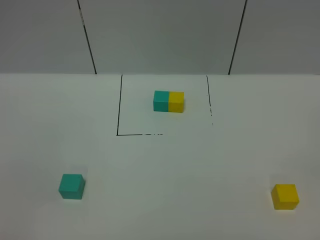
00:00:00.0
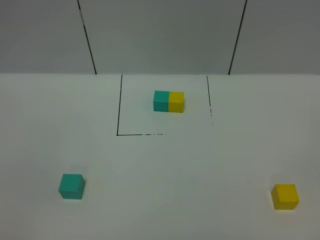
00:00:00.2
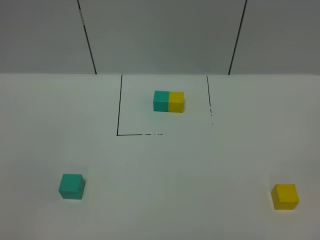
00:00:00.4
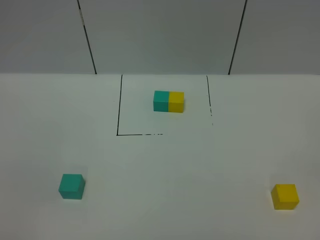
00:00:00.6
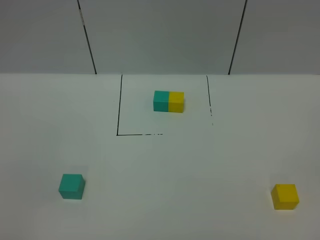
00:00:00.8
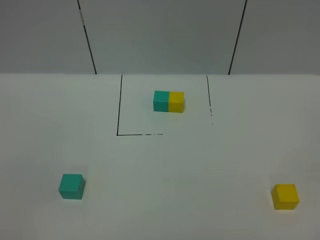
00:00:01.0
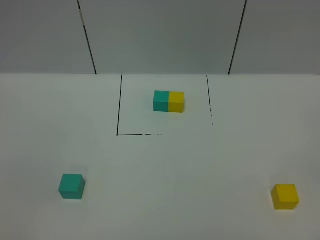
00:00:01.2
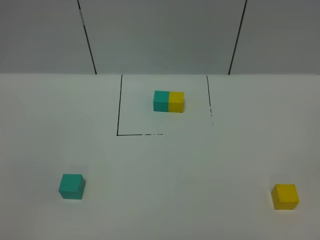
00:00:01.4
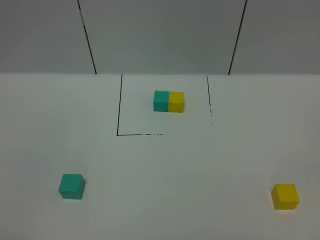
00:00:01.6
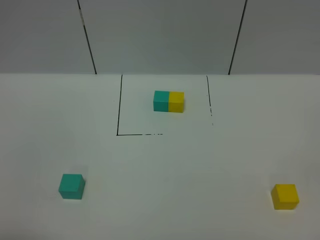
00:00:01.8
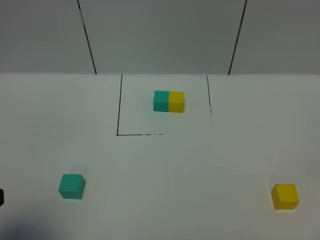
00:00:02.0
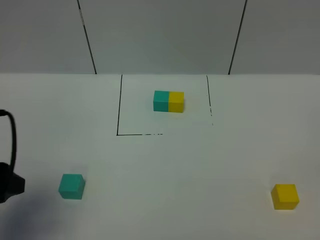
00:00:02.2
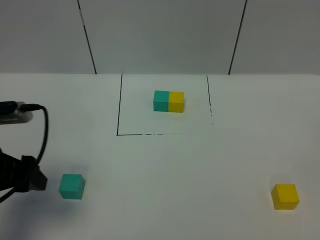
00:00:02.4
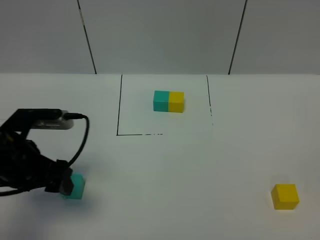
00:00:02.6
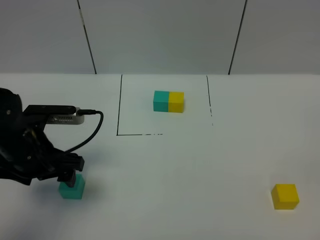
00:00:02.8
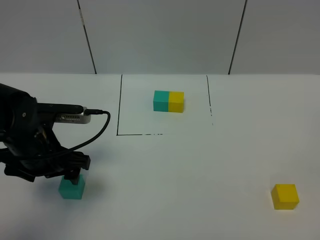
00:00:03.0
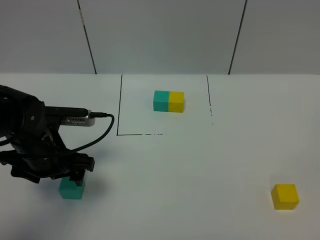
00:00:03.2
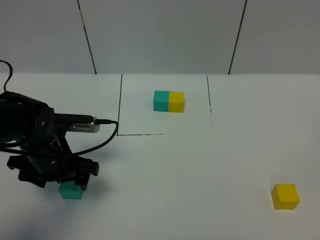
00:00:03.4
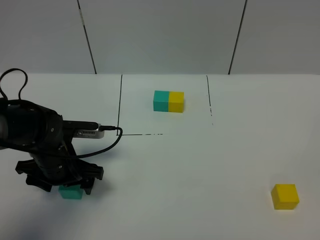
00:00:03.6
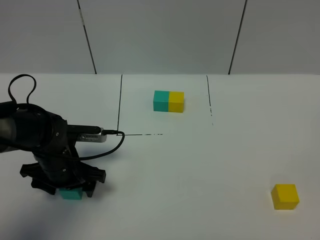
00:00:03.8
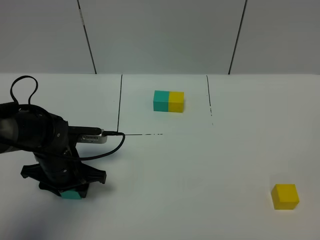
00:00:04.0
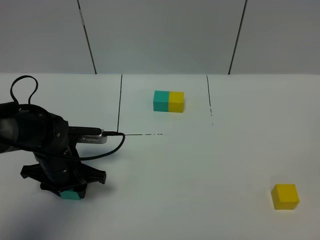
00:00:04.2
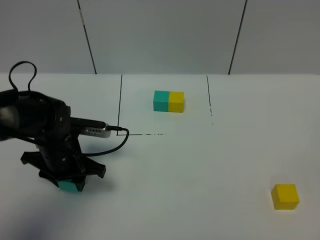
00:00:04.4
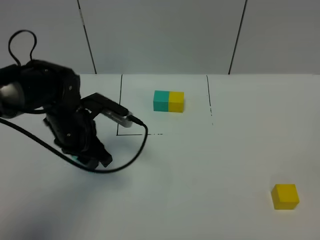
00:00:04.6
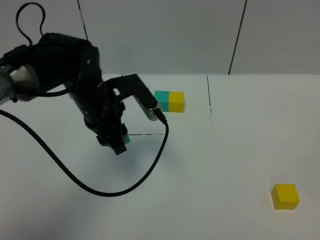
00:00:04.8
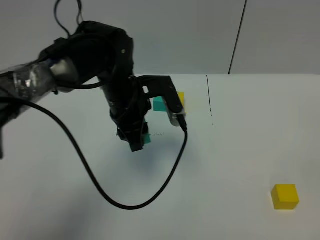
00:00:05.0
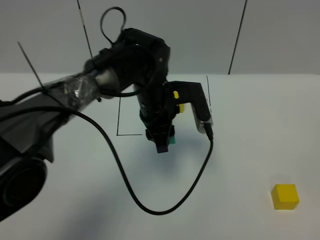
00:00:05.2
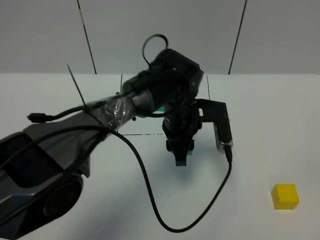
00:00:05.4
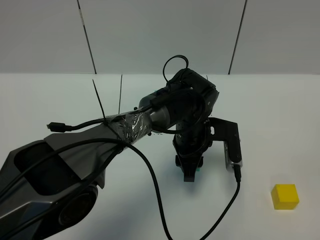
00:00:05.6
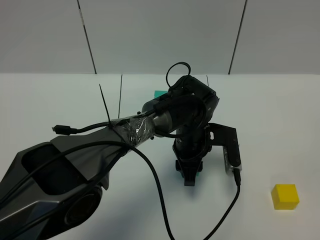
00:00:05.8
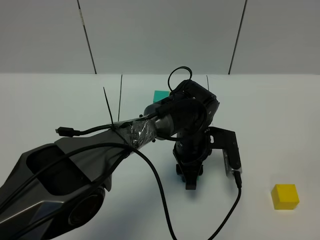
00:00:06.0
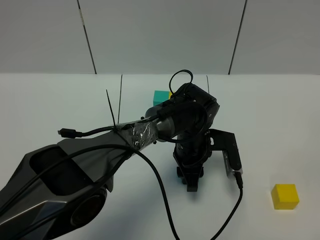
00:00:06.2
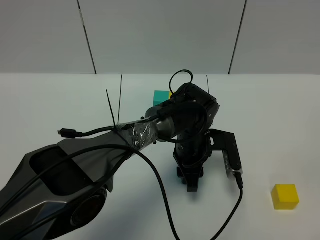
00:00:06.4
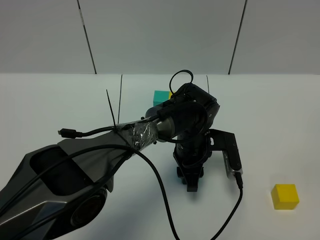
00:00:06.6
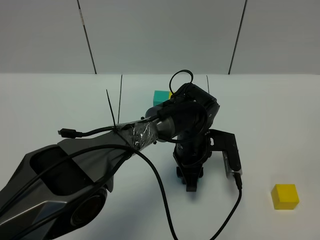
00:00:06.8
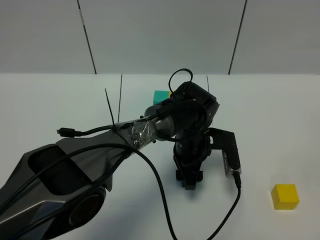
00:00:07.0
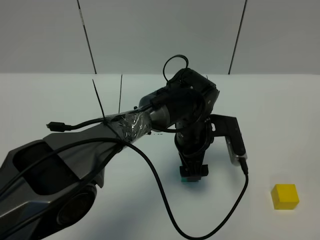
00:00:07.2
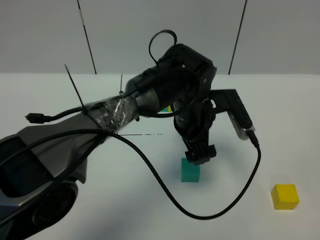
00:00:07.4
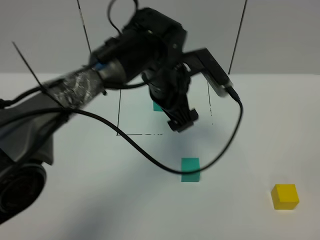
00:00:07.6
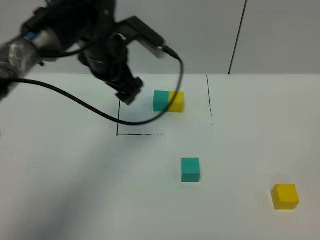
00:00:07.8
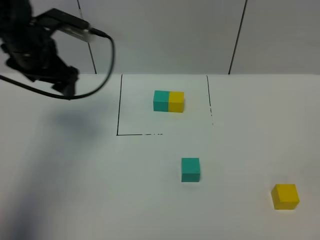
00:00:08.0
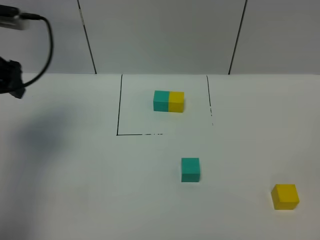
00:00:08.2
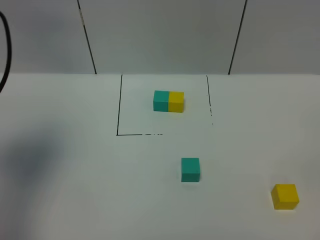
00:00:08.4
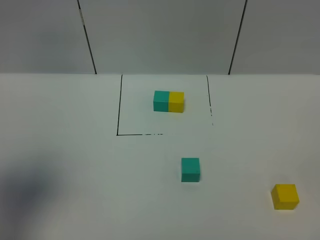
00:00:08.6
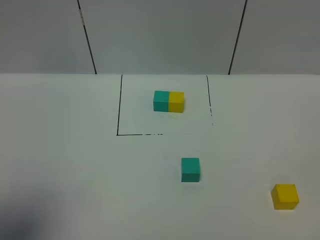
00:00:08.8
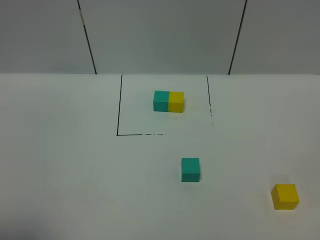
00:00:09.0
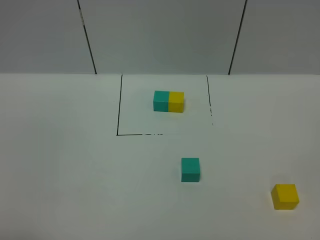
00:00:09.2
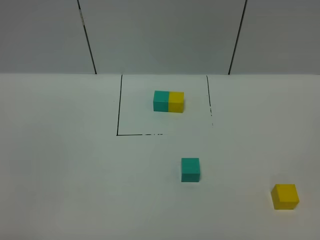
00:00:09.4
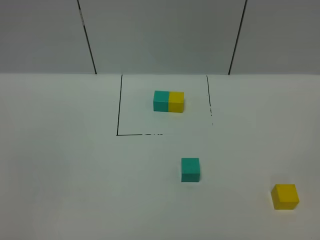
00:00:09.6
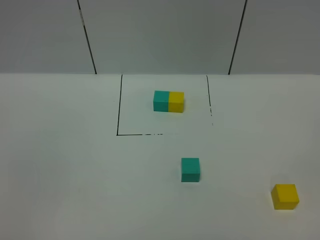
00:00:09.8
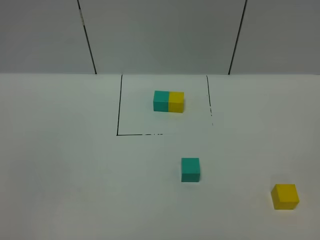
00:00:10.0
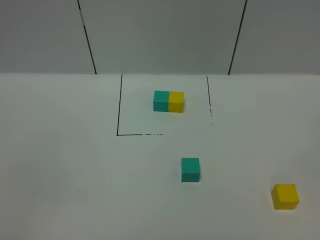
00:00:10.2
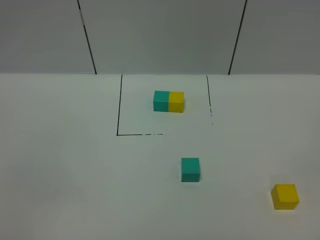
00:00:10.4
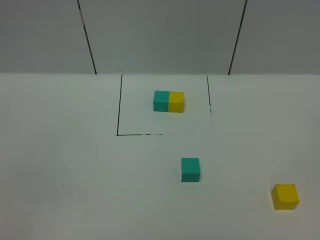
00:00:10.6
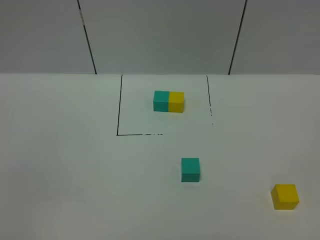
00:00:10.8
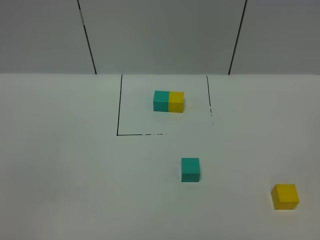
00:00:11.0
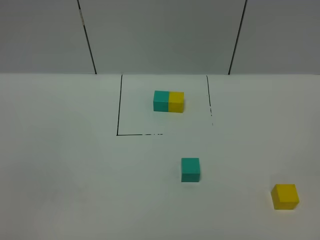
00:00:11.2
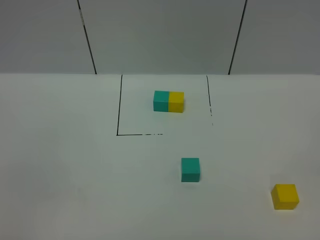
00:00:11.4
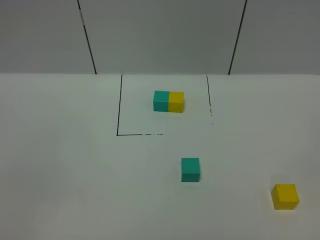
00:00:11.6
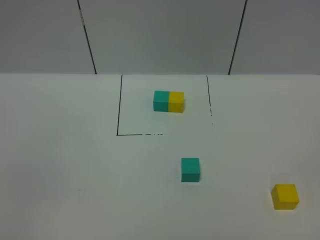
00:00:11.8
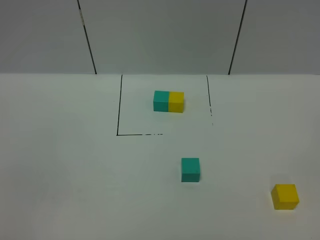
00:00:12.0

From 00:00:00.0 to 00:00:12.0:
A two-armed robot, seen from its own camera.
Task of the whole recording: According to the building block template in front, assemble the scattered blocks together.
Step, from 00:00:02.0 to 00:00:07.2: Put the green cube in the center of the table.
From 00:00:01.6 to 00:00:03.0: The left gripper travels forward by about 30 cm.
From 00:00:03.0 to 00:00:04.4: The left gripper shifts approximately 5 cm downward, and closes.
From 00:00:04.4 to 00:00:06.0: The left gripper shifts about 25 cm to the right.
From 00:00:06.0 to 00:00:07.6: The left gripper moves upward and to the left, roughly 15 cm, and opens up.
From 00:00:07.6 to 00:00:09.0: The left gripper travels backward and to the left by roughly 40 cm.

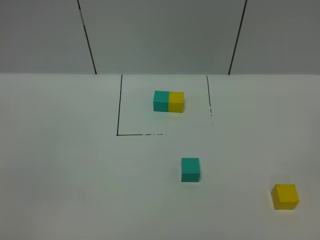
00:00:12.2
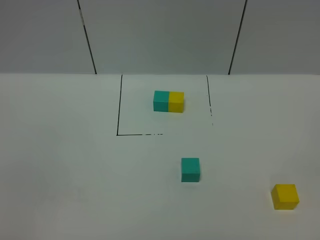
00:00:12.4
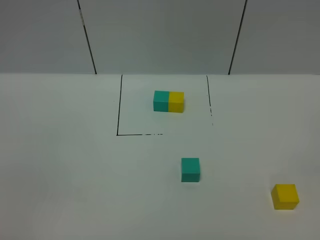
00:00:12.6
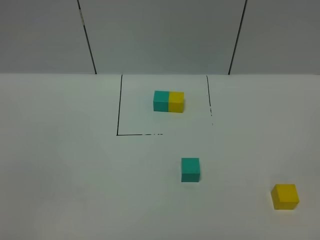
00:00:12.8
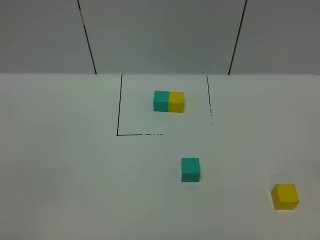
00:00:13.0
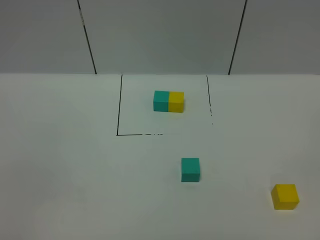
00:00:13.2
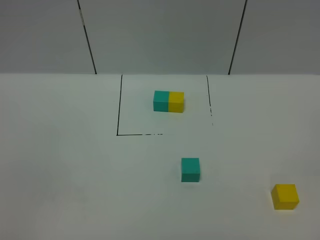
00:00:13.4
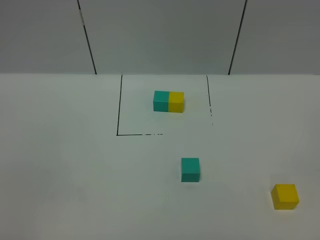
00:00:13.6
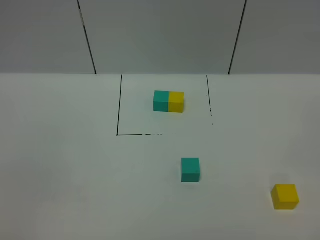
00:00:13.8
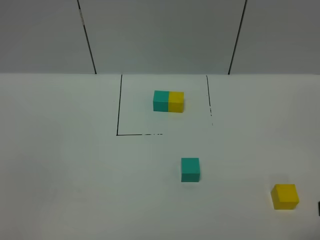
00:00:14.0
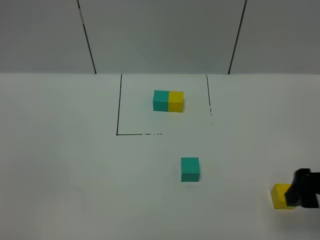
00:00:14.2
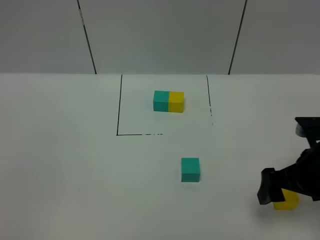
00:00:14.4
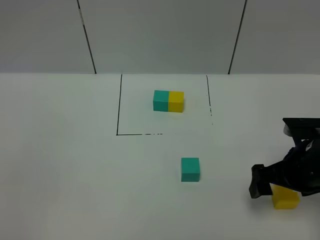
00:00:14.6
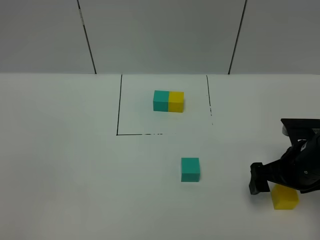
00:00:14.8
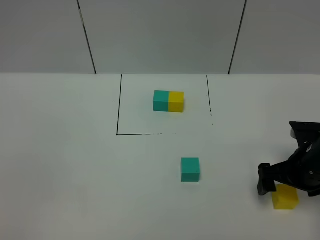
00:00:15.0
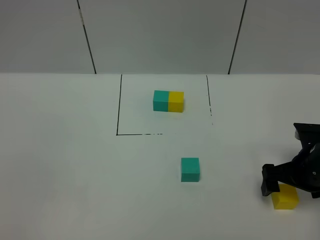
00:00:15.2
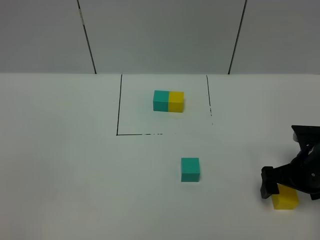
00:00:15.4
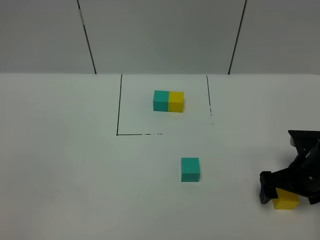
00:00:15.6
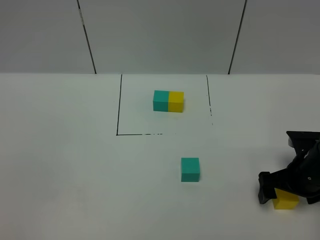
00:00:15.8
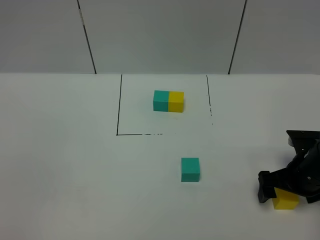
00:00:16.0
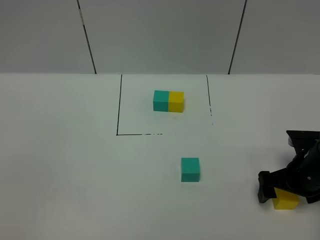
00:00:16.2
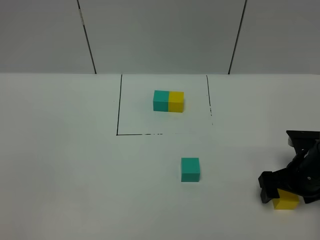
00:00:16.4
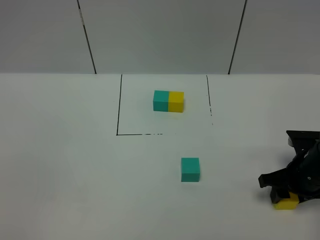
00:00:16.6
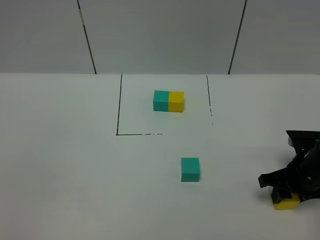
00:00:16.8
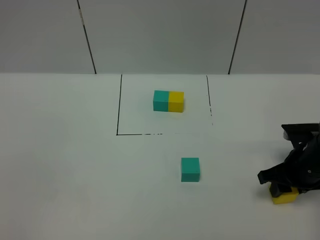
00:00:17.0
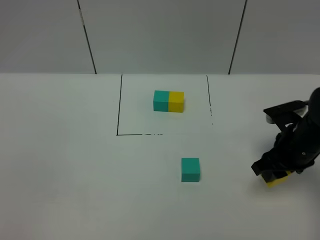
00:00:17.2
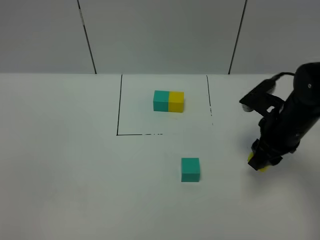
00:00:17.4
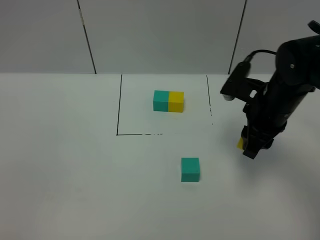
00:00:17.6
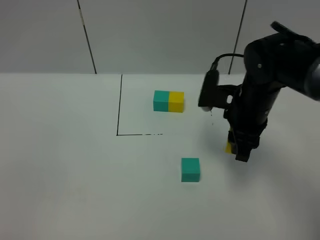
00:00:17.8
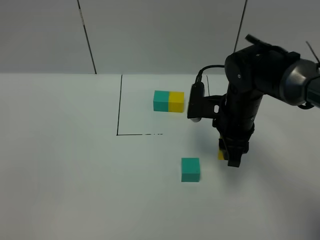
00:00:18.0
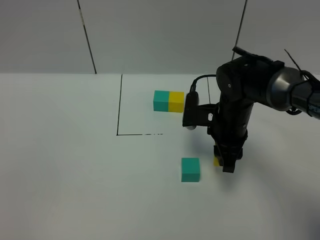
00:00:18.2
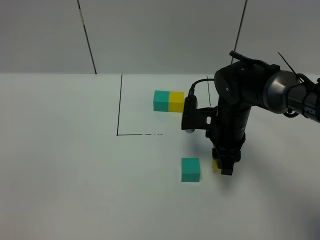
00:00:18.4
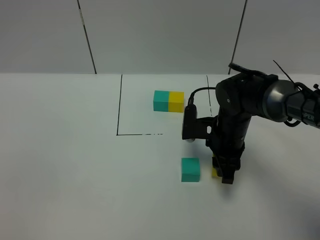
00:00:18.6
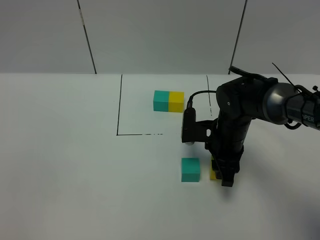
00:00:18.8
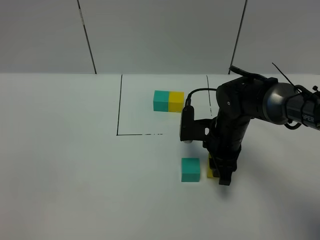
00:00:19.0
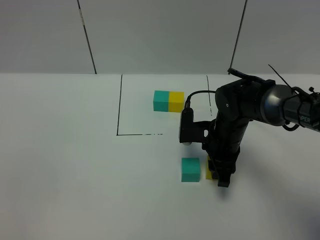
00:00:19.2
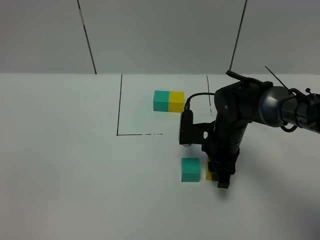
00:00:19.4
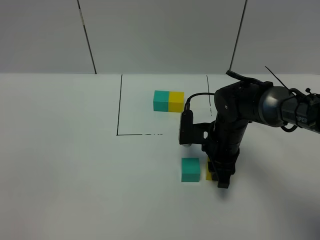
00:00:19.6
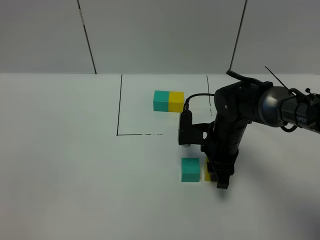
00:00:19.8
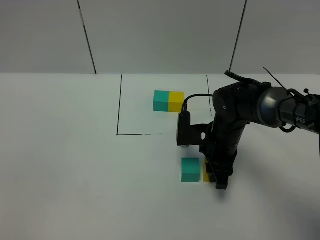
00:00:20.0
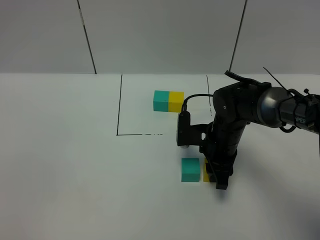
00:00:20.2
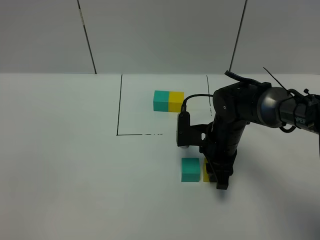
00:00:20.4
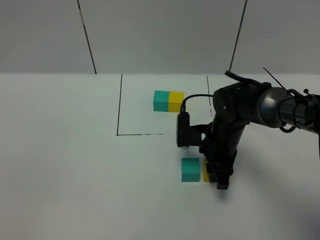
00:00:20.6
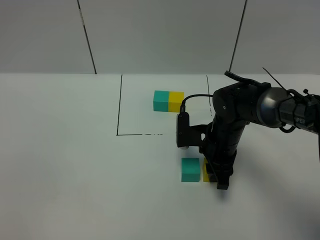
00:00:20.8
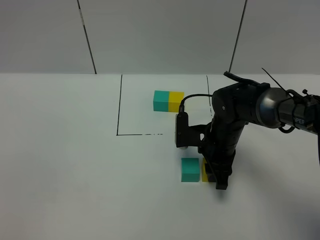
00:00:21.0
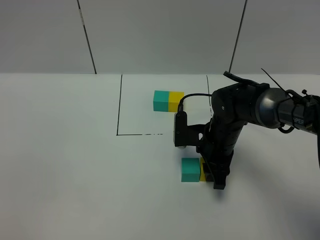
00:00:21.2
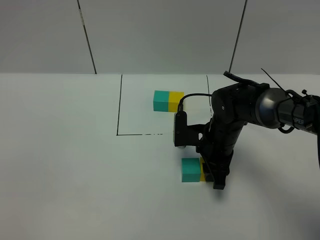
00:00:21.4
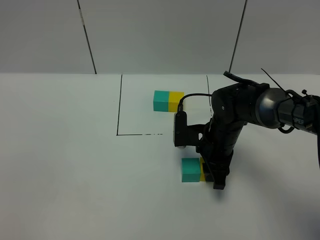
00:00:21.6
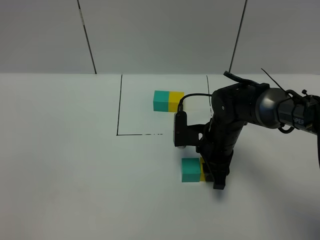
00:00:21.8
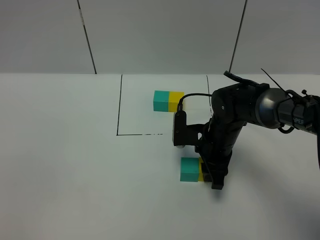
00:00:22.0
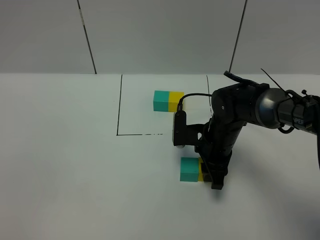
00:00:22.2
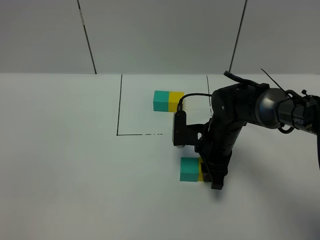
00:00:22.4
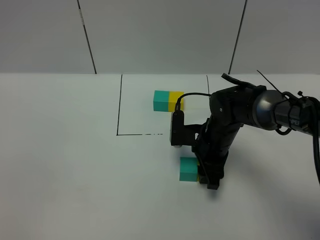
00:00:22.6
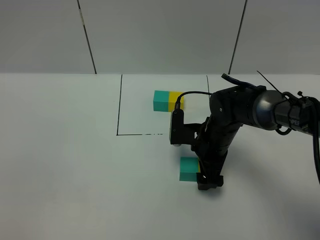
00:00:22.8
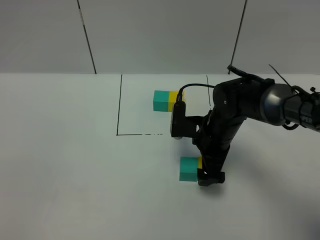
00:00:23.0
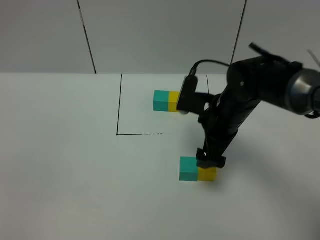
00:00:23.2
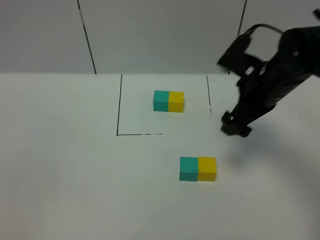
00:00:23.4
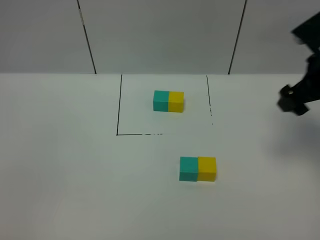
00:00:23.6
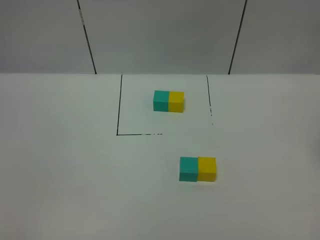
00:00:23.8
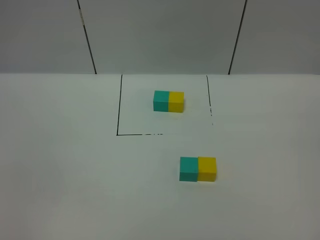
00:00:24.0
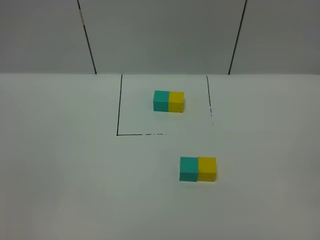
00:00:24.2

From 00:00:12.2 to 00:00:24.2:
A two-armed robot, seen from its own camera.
Task of the whole recording: According to the building block template in front, assemble the scattered blocks together.
Step, from 00:00:12.2 to 00:00:23.0: Put the yellow cube on the right of the green cube.
From 00:00:13.8 to 00:00:15.2: The right gripper travels forward and downward by some 30 cm.
From 00:00:15.2 to 00:00:16.6: The right gripper closes its fingers.
From 00:00:16.6 to 00:00:18.2: The right gripper heads to the left and forward, covering some 15 cm.
From 00:00:18.2 to 00:00:19.8: There are only small adjustments of the grippers.
From 00:00:19.8 to 00:00:21.2: The two grippers keep their place.
From 00:00:21.2 to 00:00:22.6: The two grippers keep their place.
From 00:00:22.6 to 00:00:24.2: The right gripper is displaced to the right, upward and backward by approximately 40 cm, and opens its fingers.
